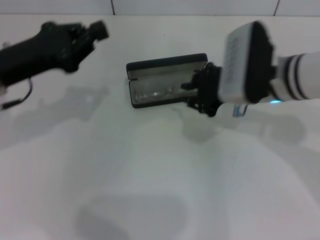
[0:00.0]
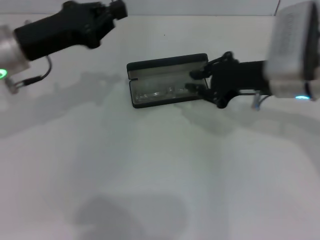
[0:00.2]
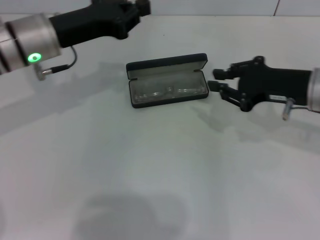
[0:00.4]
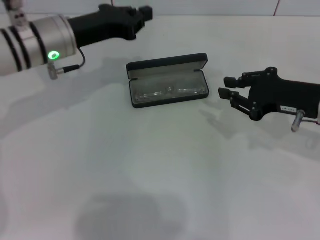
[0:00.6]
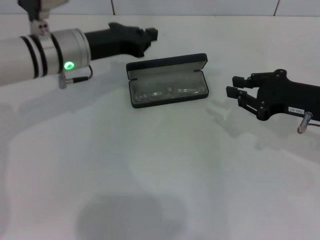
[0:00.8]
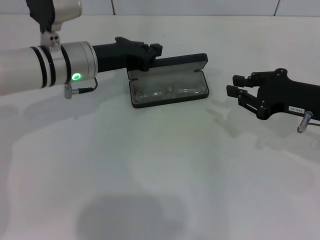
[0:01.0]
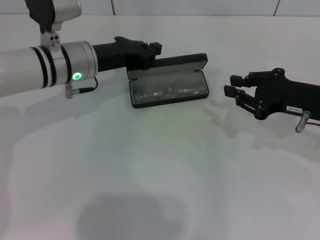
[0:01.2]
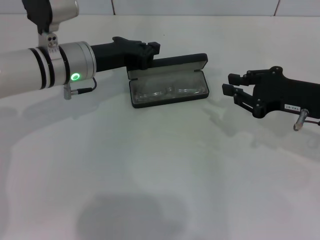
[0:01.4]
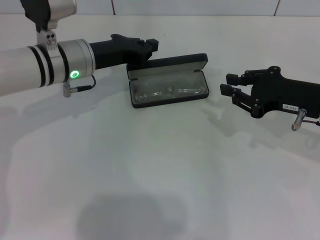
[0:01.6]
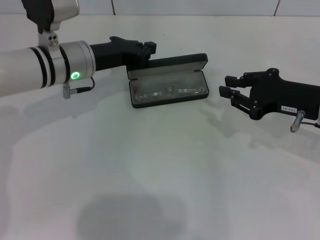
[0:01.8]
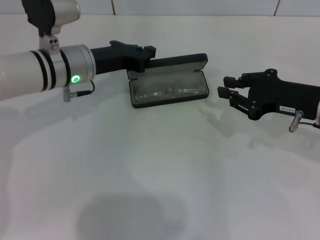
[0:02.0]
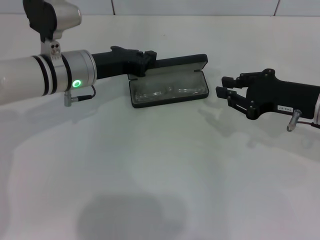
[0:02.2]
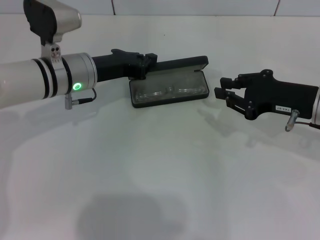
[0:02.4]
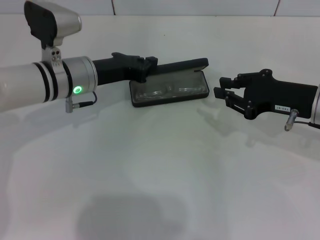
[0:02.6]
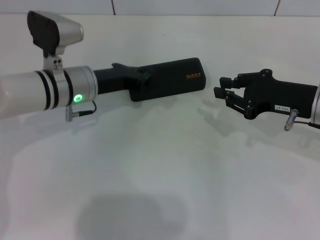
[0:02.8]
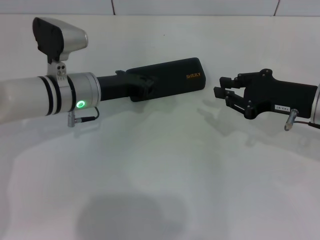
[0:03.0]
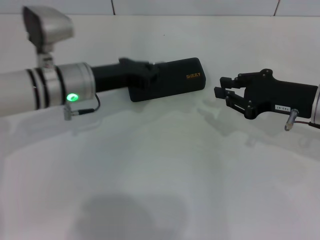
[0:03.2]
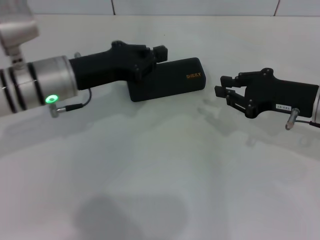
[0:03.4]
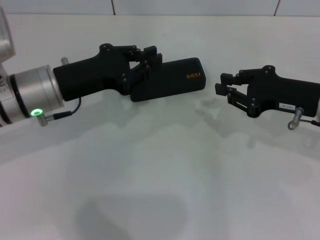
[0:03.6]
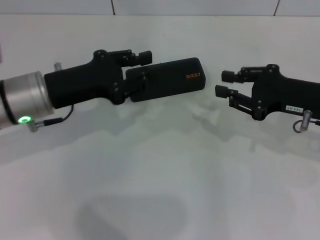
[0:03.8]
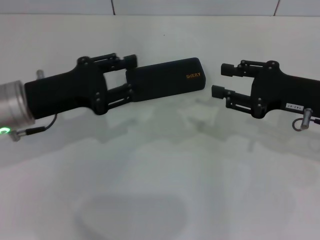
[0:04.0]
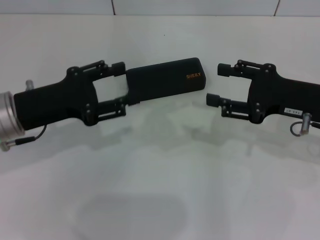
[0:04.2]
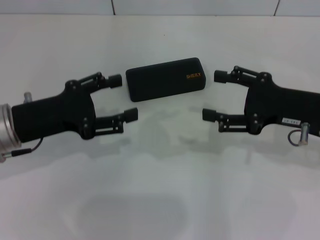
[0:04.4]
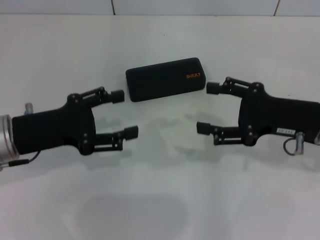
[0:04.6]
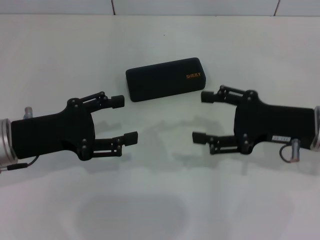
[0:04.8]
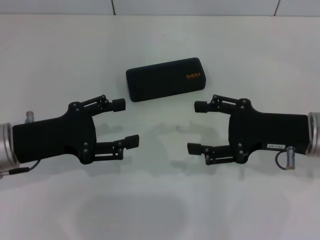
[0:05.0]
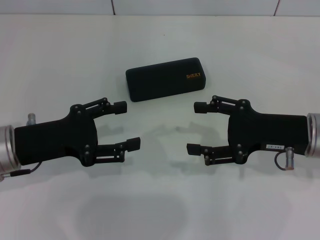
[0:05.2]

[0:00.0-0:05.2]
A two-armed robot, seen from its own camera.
Step, 0:00.0 to 0:02.8: Close the glasses case with your left hand.
0:00.0 to 0:01.8: The right gripper is displaced to the right by some 10 cm. The left gripper shifts approximately 15 cm to the right and forward.
0:01.8 to 0:03.4: The left gripper is displaced backward by roughly 5 cm.
0:03.4 to 0:05.2: The left gripper moves backward and to the left, roughly 10 cm, and opens up. The right gripper opens its fingers.
